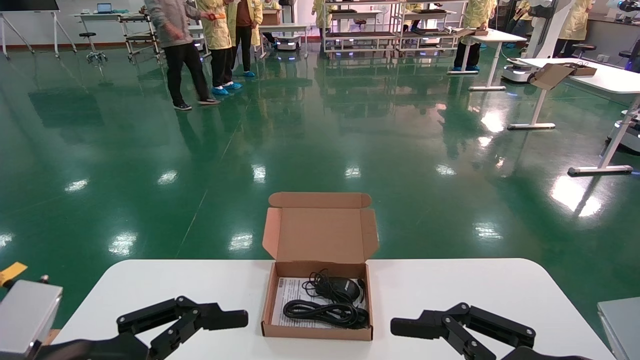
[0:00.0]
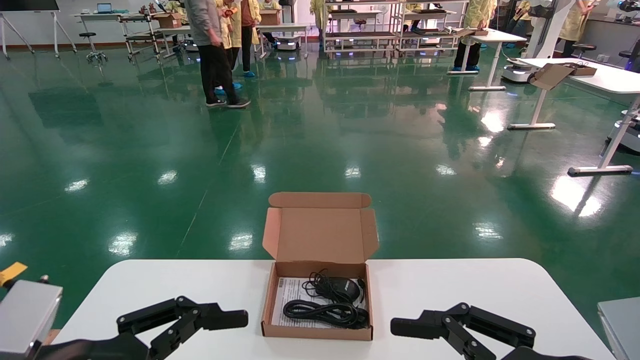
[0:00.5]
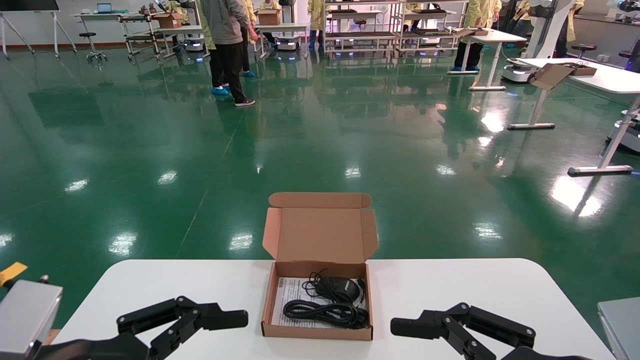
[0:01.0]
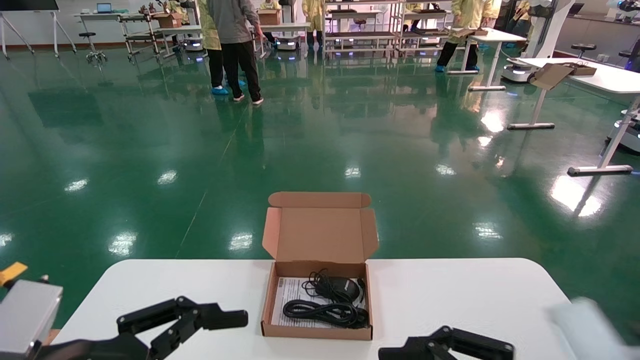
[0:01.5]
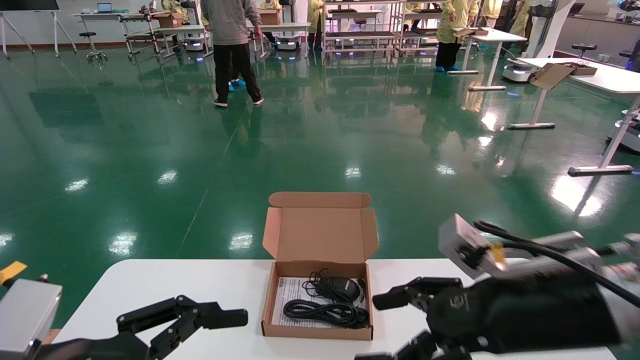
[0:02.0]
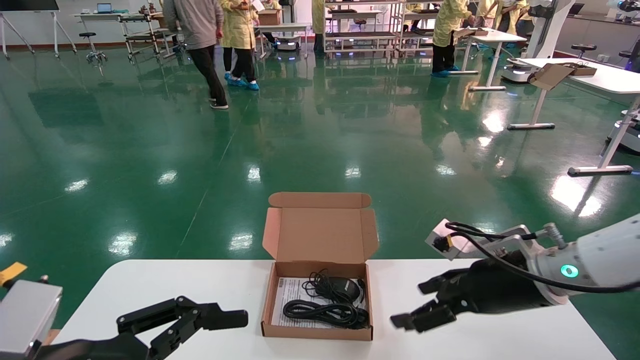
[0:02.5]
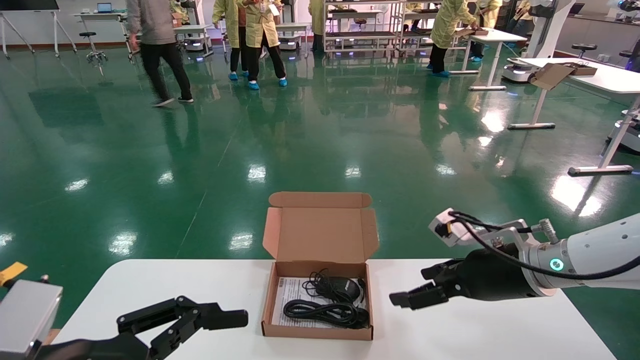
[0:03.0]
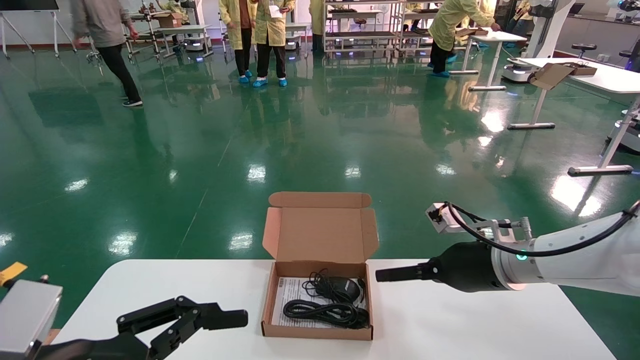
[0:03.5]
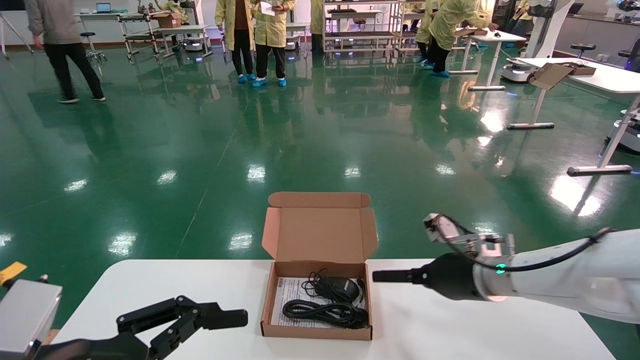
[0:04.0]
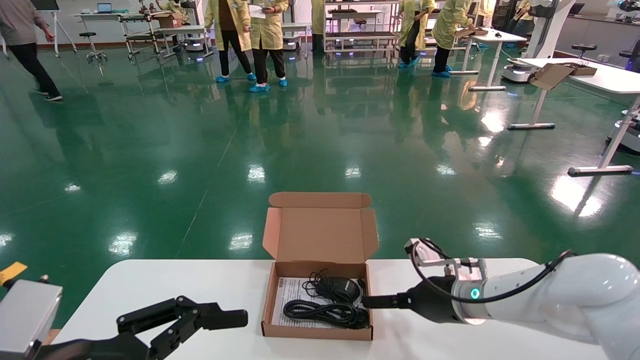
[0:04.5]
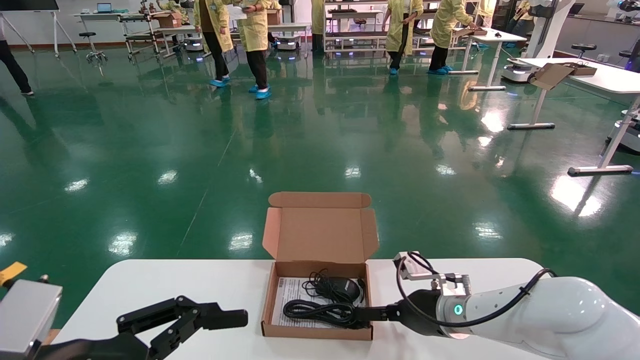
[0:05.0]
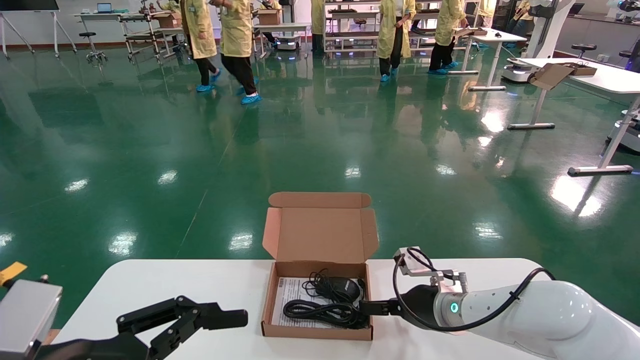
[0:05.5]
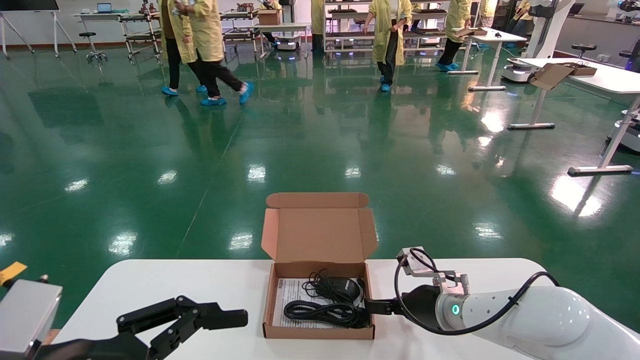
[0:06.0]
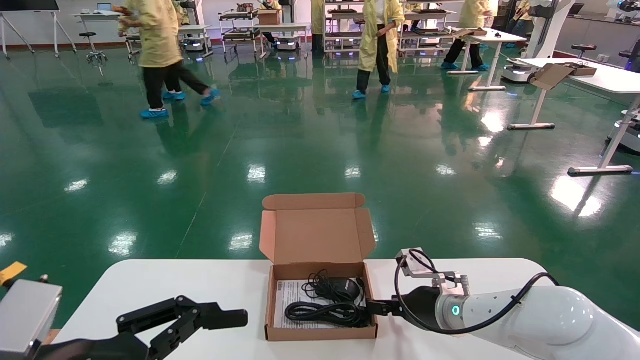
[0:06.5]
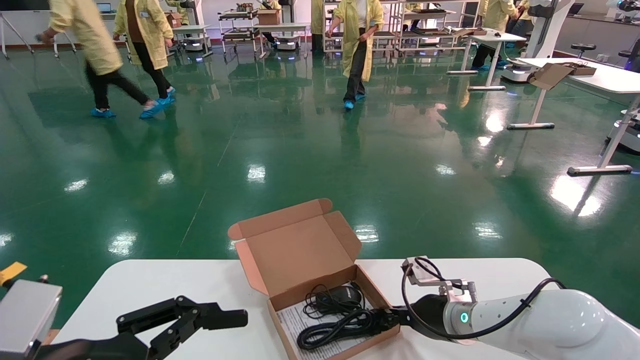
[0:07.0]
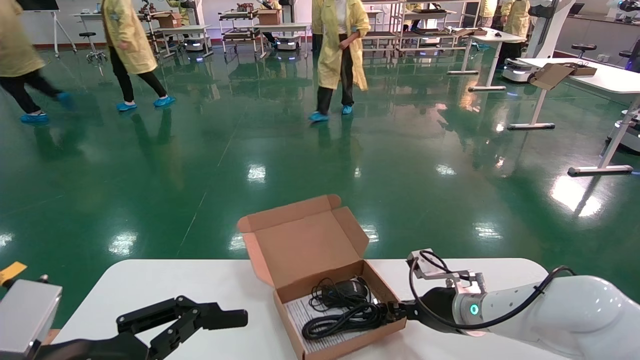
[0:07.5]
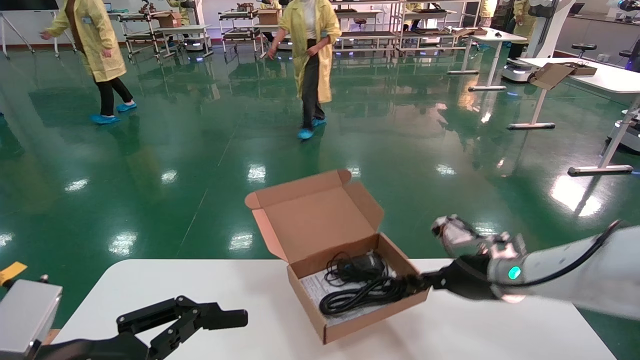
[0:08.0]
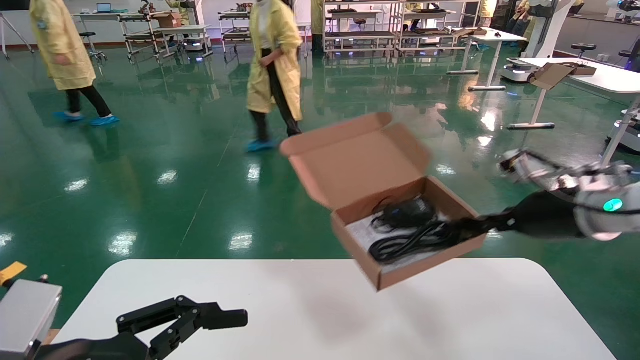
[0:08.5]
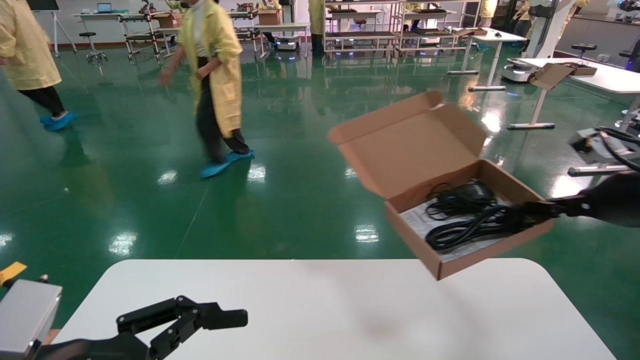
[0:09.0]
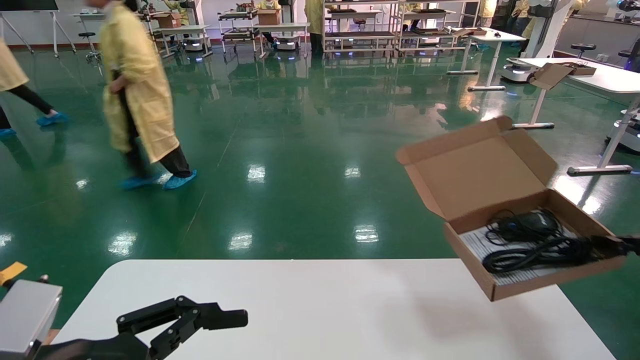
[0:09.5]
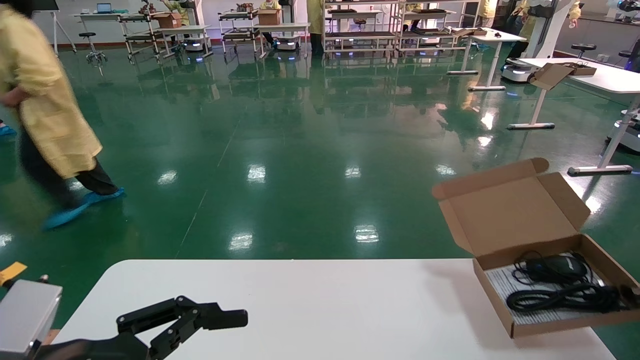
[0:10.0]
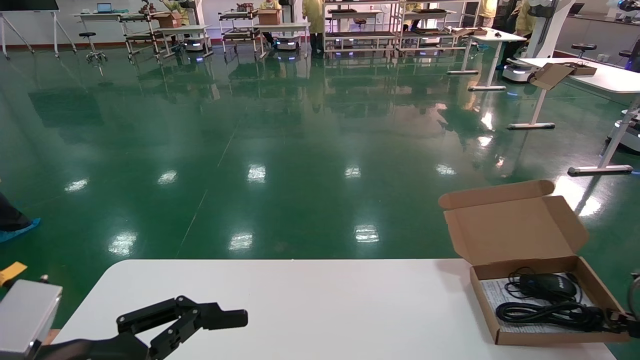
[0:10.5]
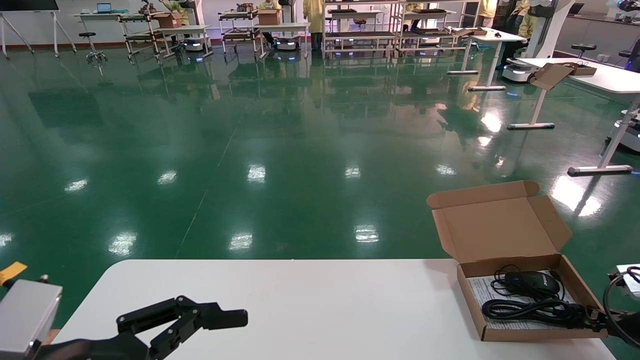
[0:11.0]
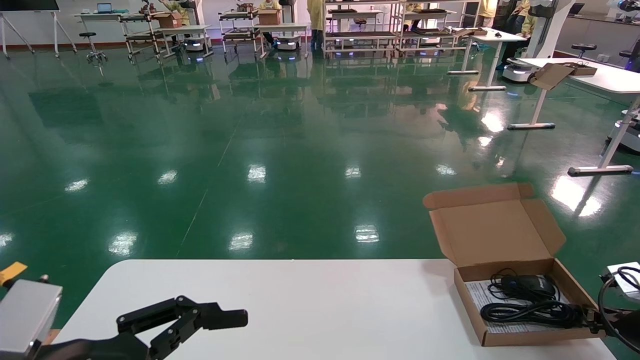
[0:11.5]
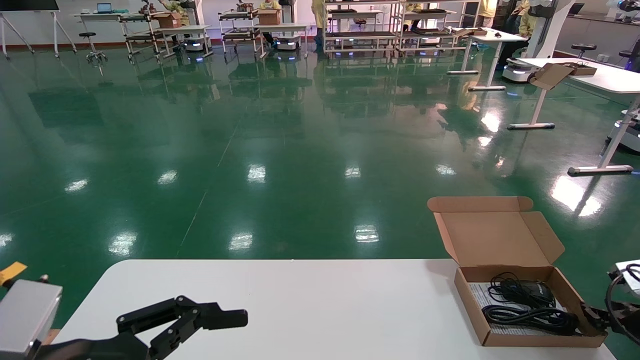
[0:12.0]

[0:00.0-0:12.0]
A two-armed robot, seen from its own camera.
Task of the whole recording: move the position of the storage box with accessories on the table.
Step, 0:02.0 to 0:07.0: Grab and pick up the open mouse box from the accessory packaging area.
Step, 0:07.5 to 0:12.0: Place the open mouse box onto the operation table.
0:00.0 to 0:02.0: The right gripper shifts about 10 cm forward.
0:02.0 to 0:04.0: The right gripper goes about 15 cm forward.
0:04.0 to 0:06.0: The right gripper goes some 5 cm downward.
0:06.0 to 0:08.0: The right gripper heads upward and to the right, covering some 10 cm, and closes up.
0:08.0 to 0:10.0: The right gripper shifts some 25 cm to the right.
0:10.0 to 0:12.0: The right gripper goes approximately 5 cm downward.

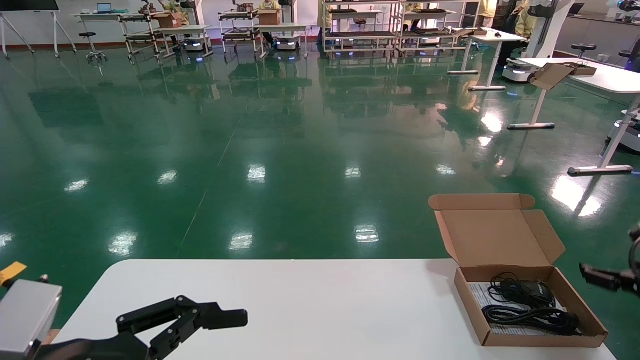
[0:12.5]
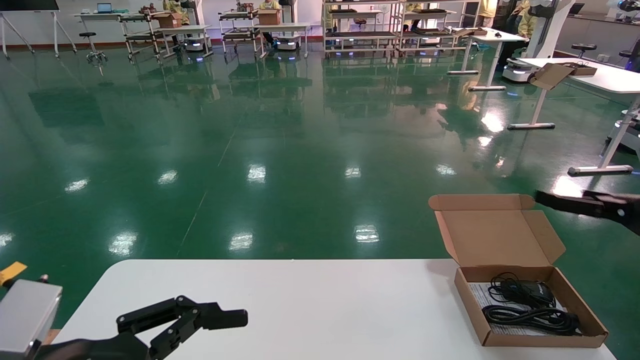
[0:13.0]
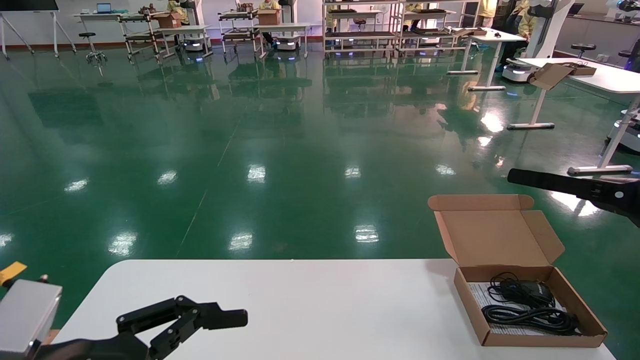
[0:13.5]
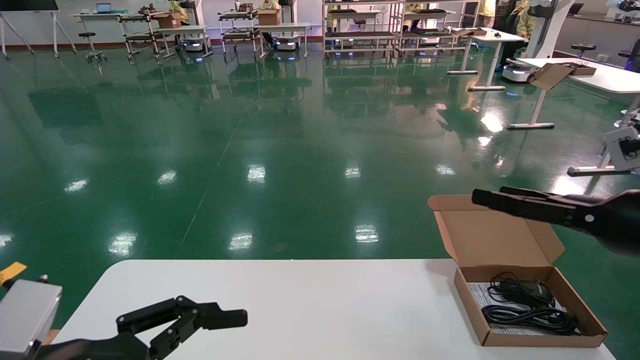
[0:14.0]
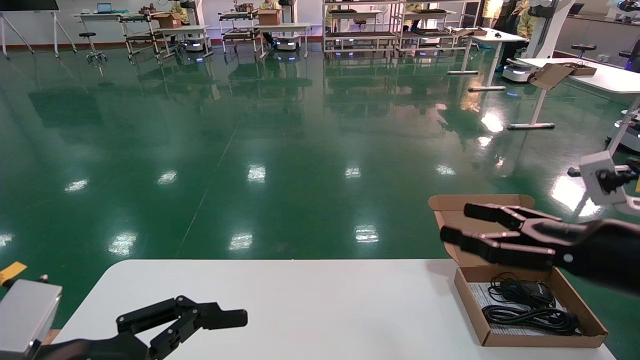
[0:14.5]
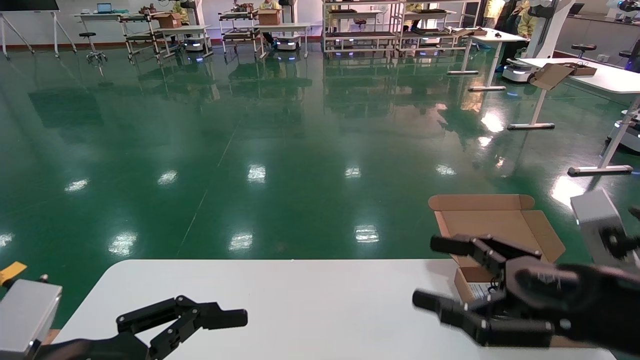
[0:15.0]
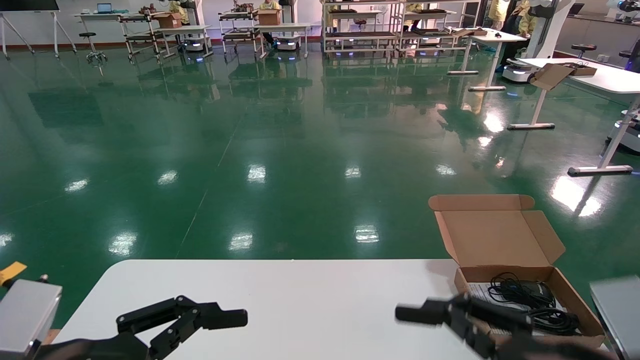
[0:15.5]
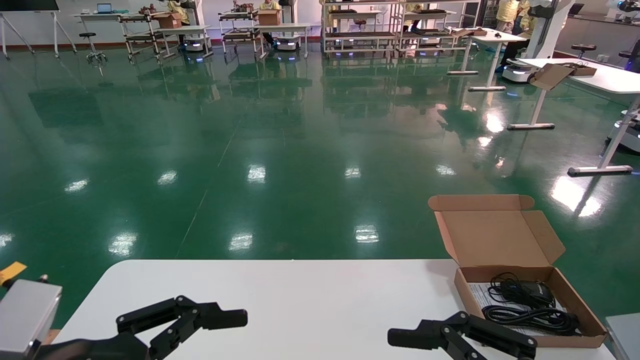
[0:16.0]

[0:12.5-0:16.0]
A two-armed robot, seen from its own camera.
Task of the whole recording: move the position of the storage box with accessories on the table.
0:12.5 to 0:14.5: The right gripper moves to the left, backward and upward, roughly 20 cm.
0:14.5 to 0:16.0: The right gripper is displaced backward, to the left and downward by about 15 cm.
